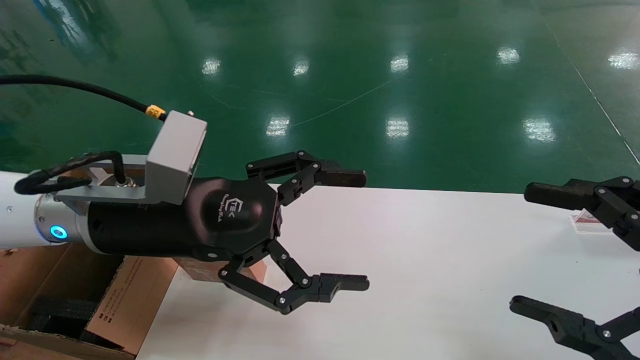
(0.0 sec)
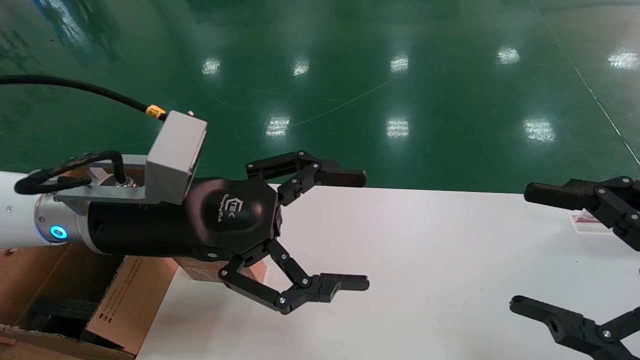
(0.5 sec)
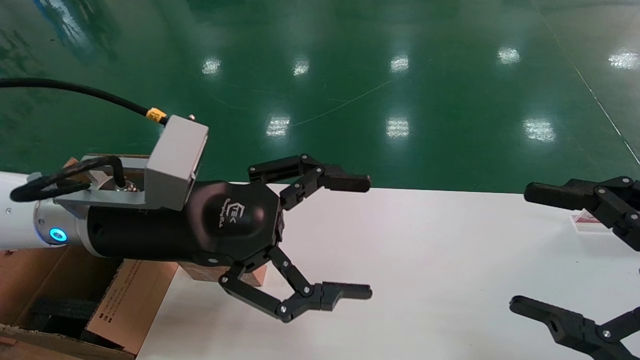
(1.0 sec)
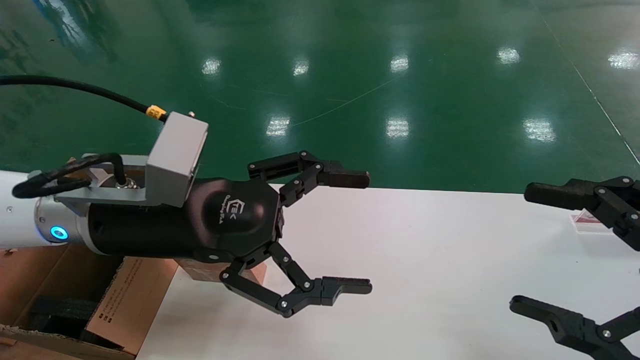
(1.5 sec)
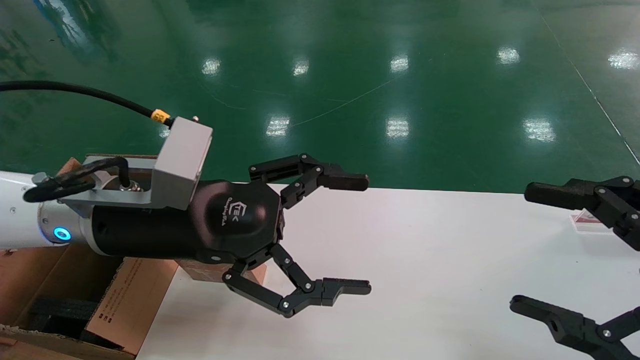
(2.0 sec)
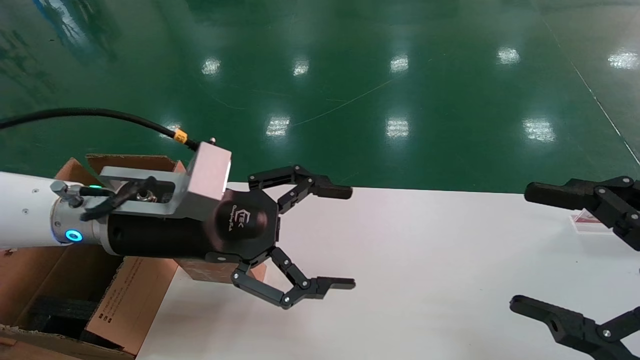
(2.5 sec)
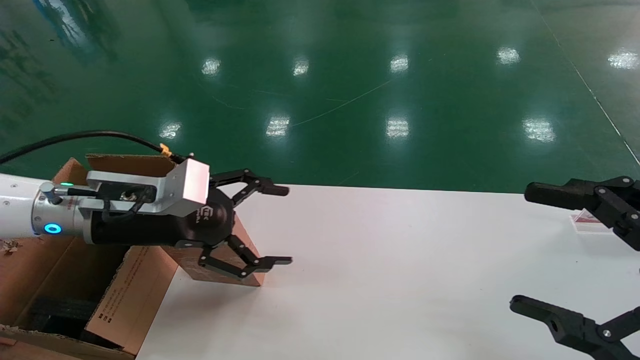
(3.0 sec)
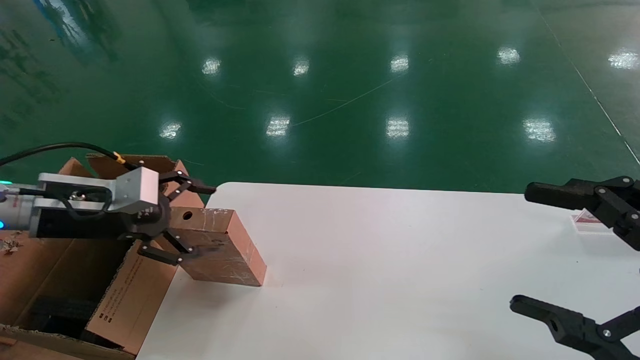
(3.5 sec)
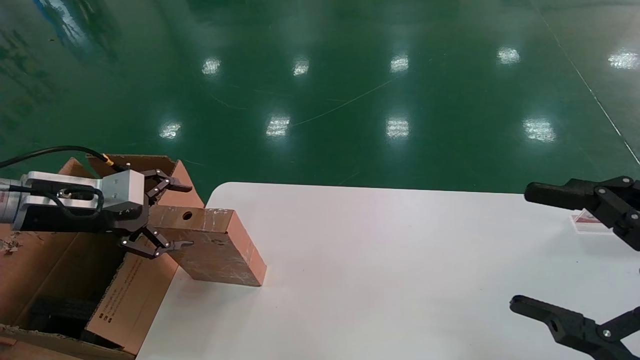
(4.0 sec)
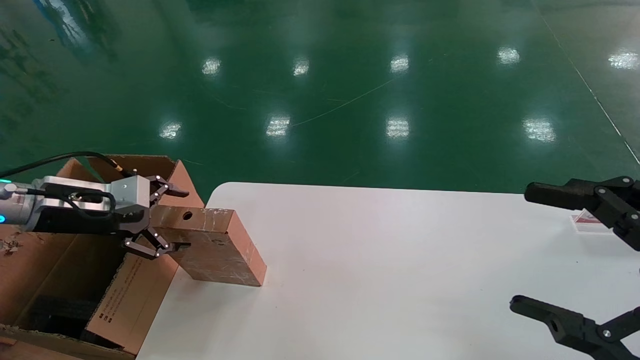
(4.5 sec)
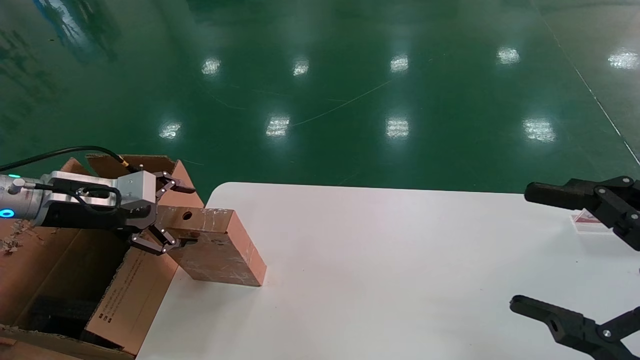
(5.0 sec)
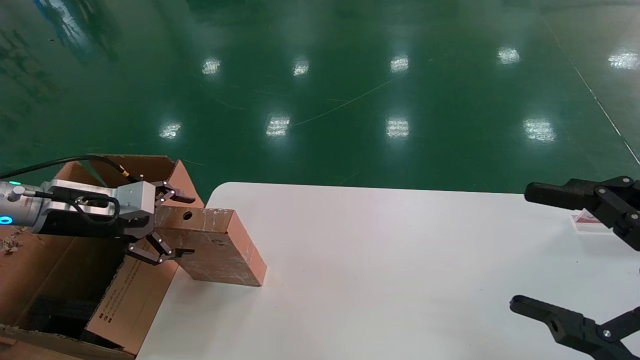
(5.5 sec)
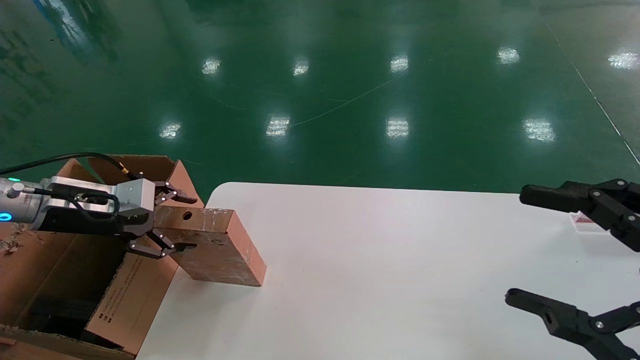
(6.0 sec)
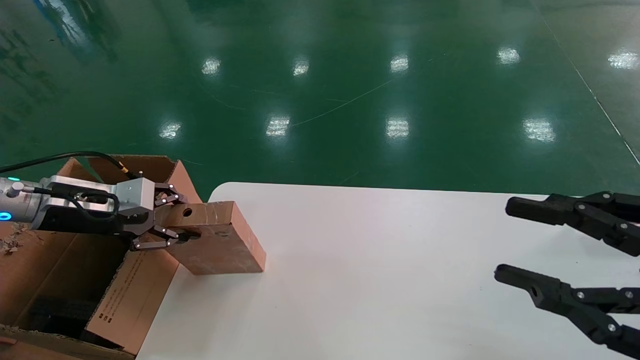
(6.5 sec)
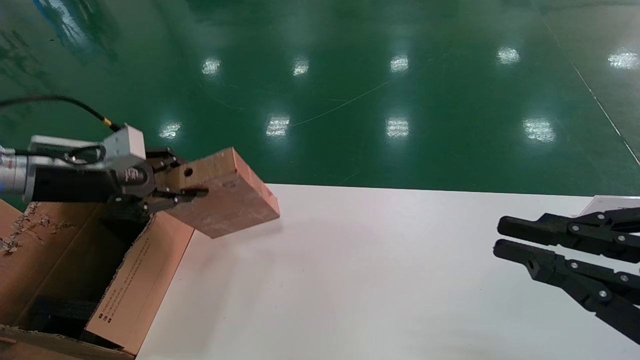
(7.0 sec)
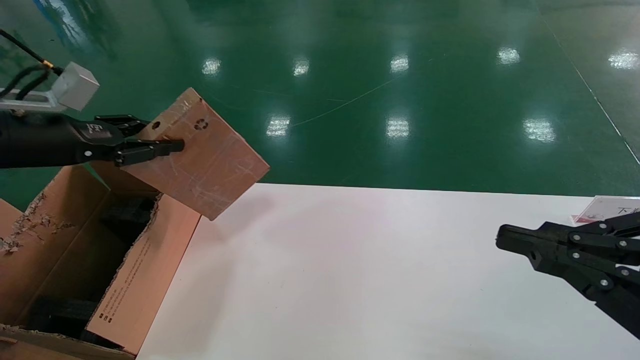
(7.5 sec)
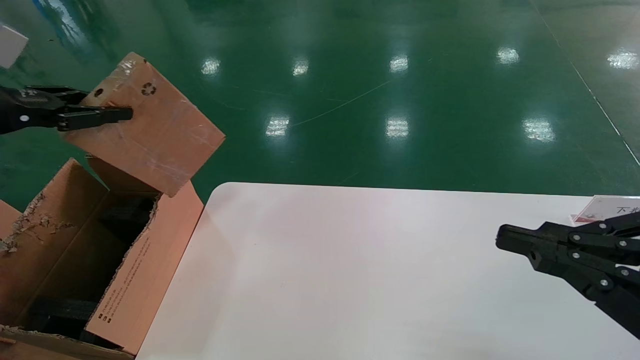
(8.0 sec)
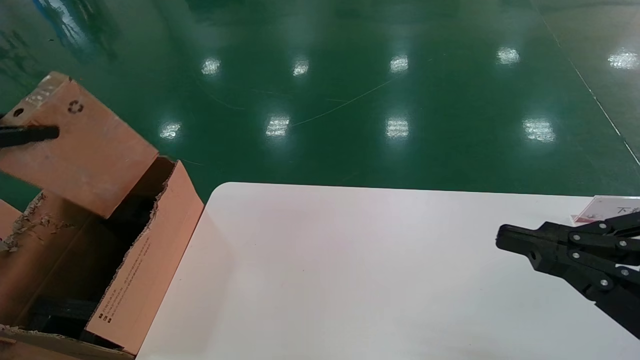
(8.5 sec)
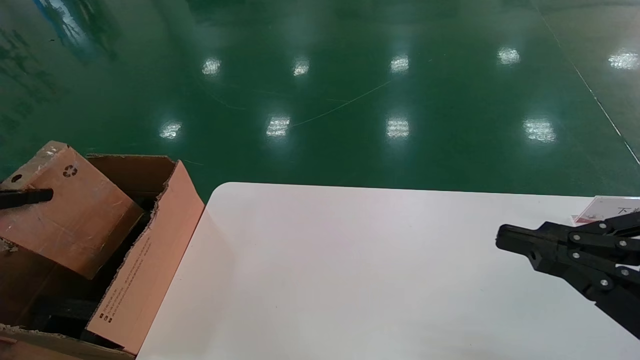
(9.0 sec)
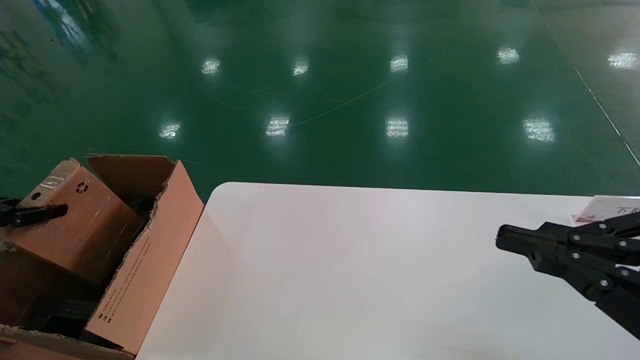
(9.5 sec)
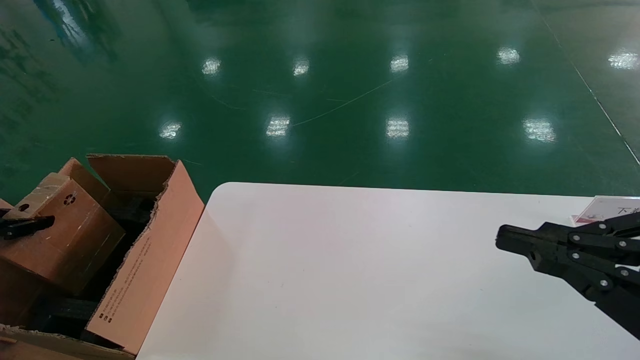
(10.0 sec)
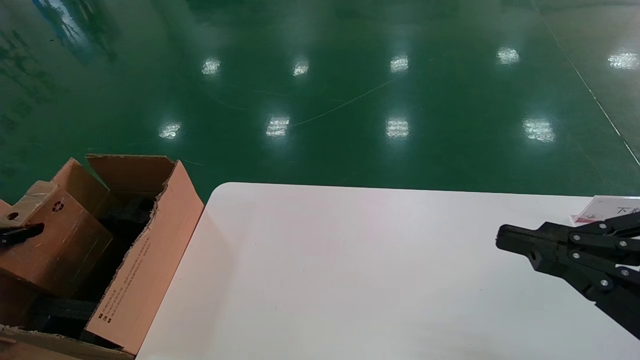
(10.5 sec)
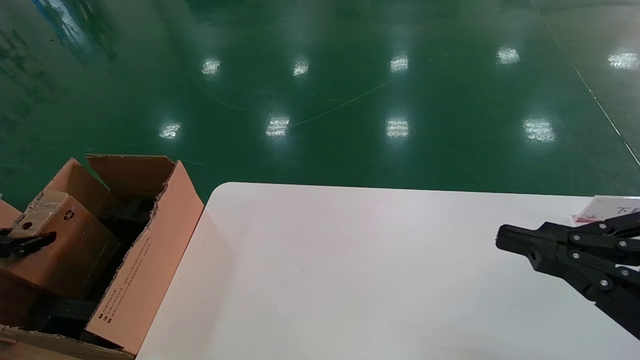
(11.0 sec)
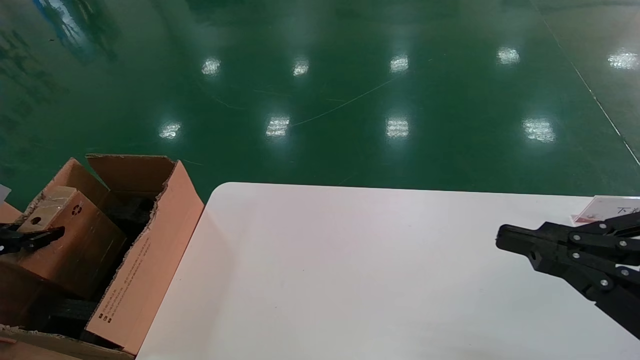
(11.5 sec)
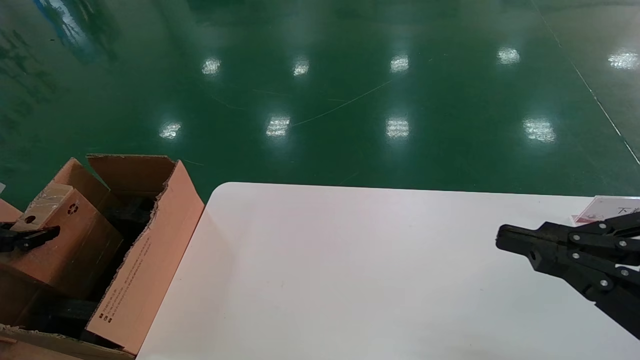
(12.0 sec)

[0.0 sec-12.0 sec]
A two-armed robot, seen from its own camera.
Task of the whole recording: put the box on the table into the big box.
Step, 2.5 sec to 6.5 sec: Pick up the mouse and the power cord paper box.
0.0 sec to 2.0 sec: Both grippers stay put.
2.0 sec to 4.0 sec: The left gripper is displaced to the left by about 20 cm.
4.0 sec to 6.0 sec: There are only small adjustments of the grippers.
6.0 sec to 8.0 sec: The right gripper closes its fingers; the left gripper moves upward, backward and to the left, some 20 cm, and closes its fingers.
8.0 sec to 10.0 sec: The left gripper travels downward and to the left by some 20 cm.
10.0 sec to 12.0 sec: The grippers move only a little.

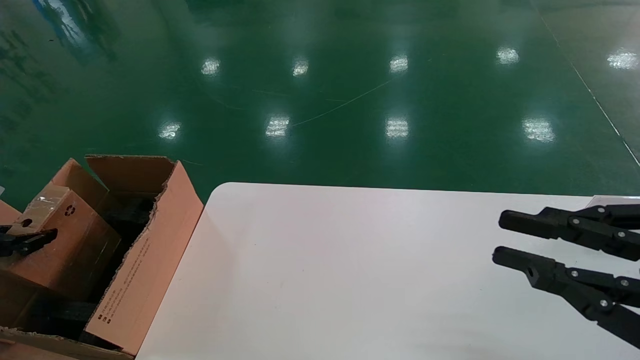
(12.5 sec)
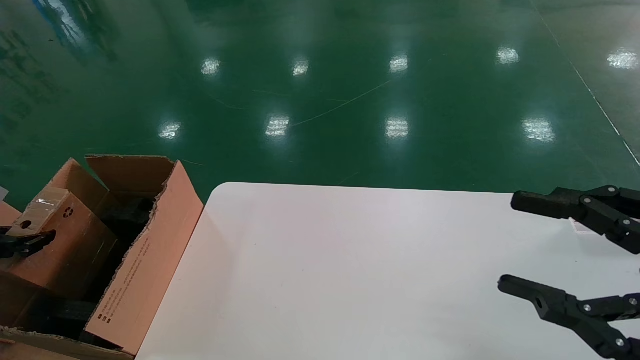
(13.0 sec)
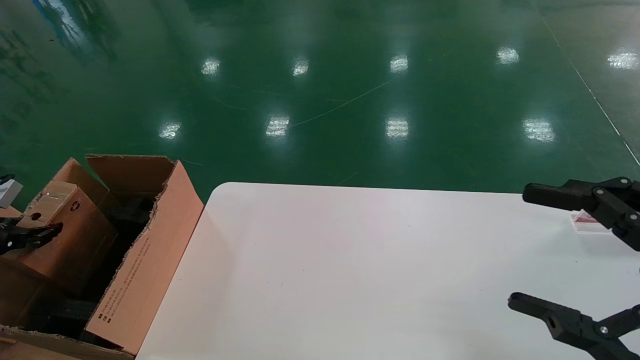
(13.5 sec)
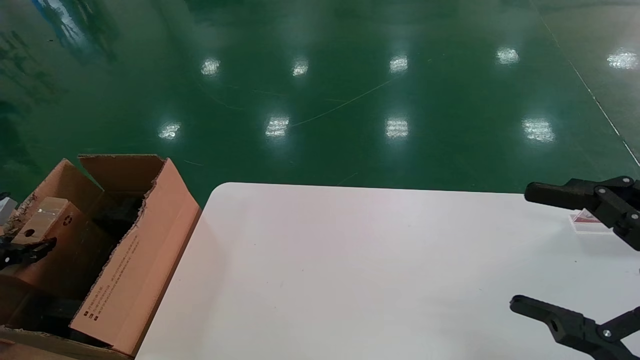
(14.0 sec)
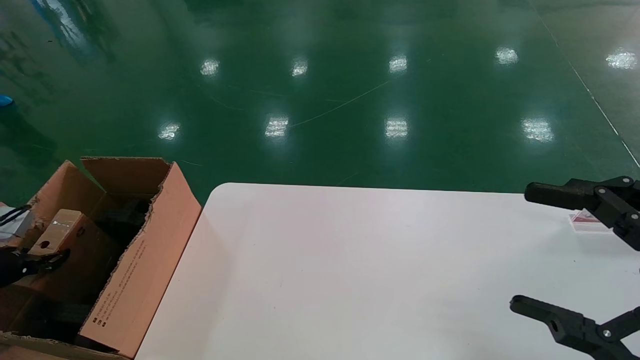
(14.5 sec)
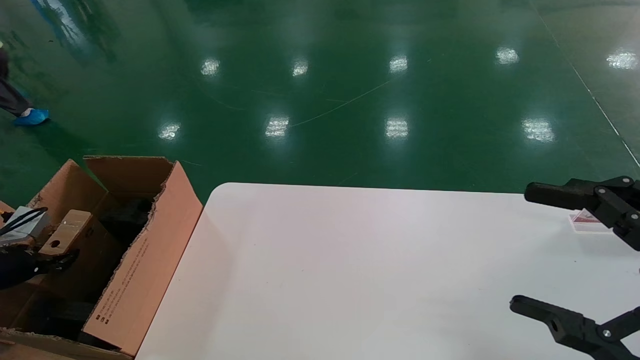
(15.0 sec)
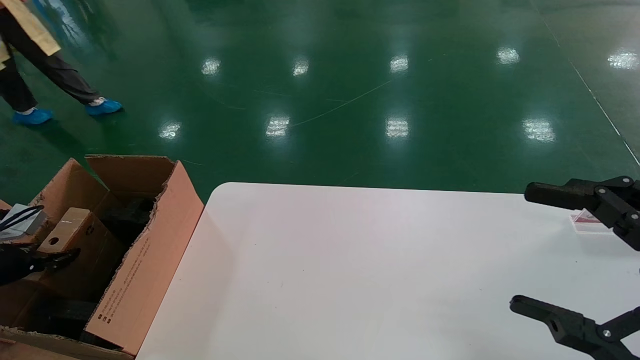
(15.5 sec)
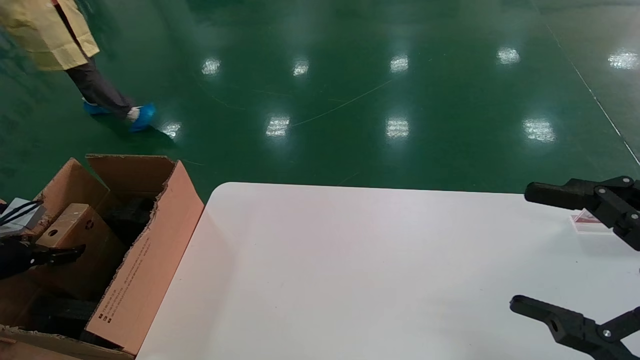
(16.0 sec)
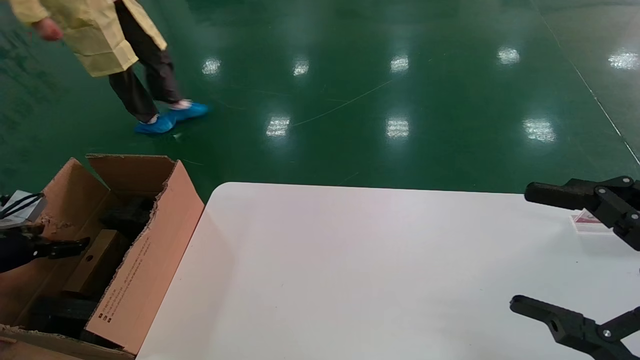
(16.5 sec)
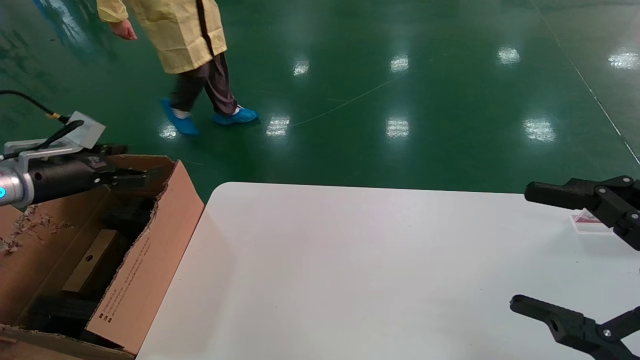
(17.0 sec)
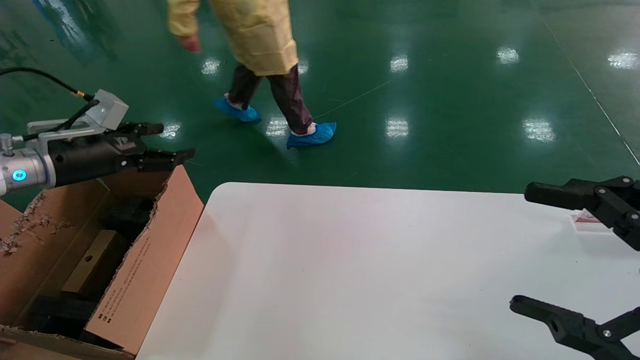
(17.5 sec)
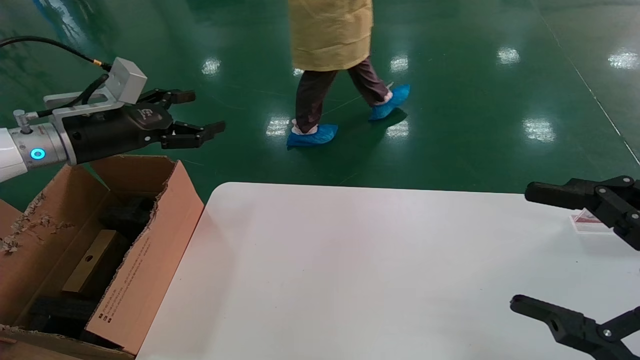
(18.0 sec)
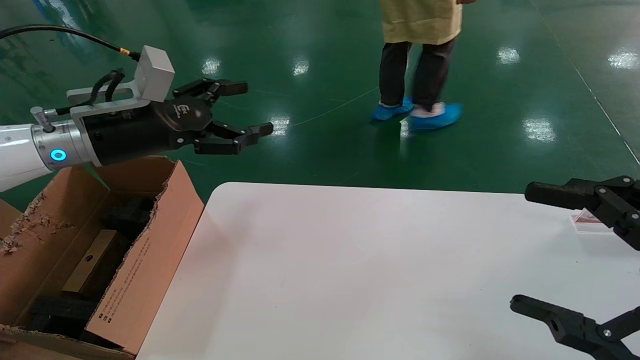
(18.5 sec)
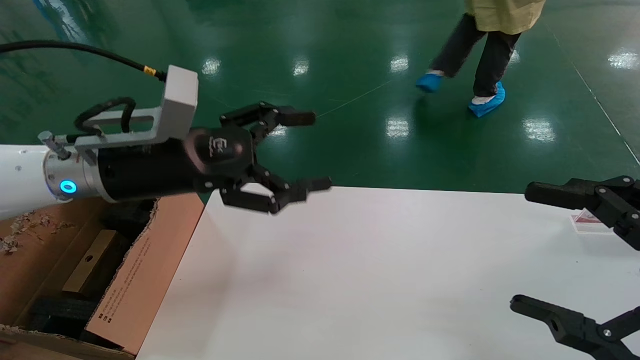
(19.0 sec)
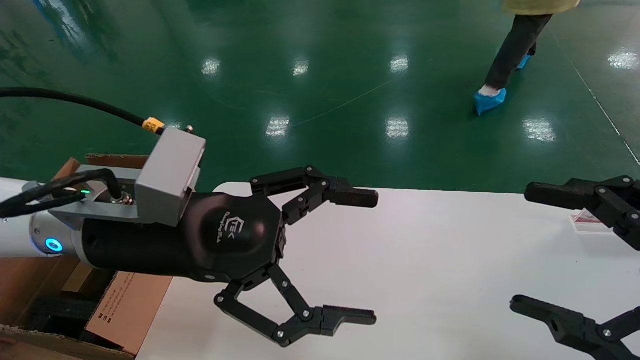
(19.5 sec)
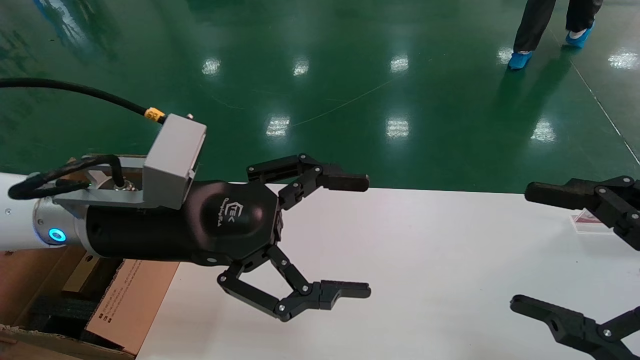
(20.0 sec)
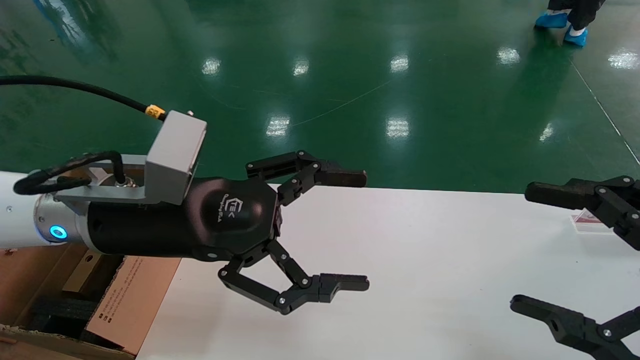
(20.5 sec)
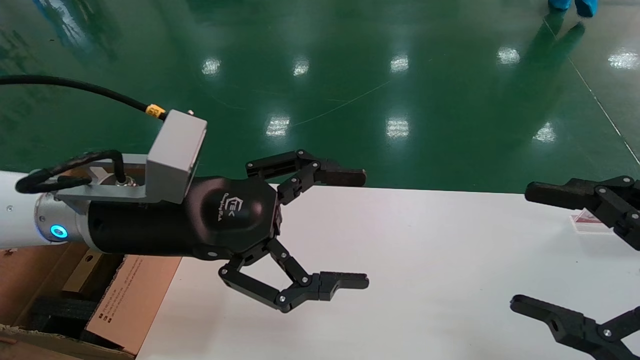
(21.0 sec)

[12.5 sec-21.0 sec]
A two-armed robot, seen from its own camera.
Task of the whole recording: put the box on the table into the big box.
Step, 12.5 sec to 16.0 sec: Place the mouse and the power cord paper box into the container.
12.5 sec to 14.5 sec: The left gripper goes roughly 10 cm downward, while the right gripper opens.
14.5 sec to 16.5 sec: The left gripper ends up roughly 5 cm from where it was, and opens up.
16.5 sec to 19.0 sec: The left gripper shifts about 40 cm to the right and upward.
19.0 sec to 21.0 sec: The left gripper changes place by approximately 5 cm.
